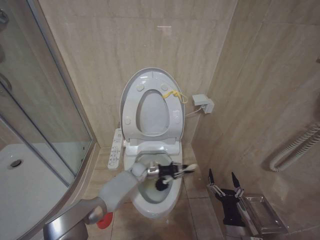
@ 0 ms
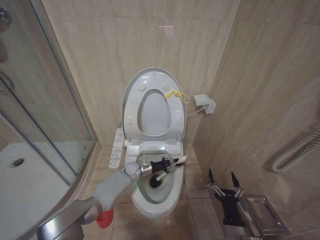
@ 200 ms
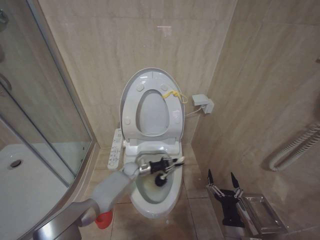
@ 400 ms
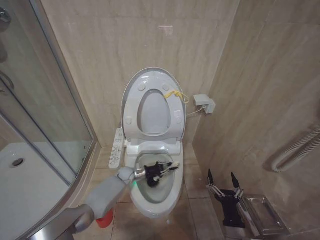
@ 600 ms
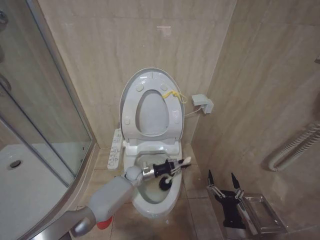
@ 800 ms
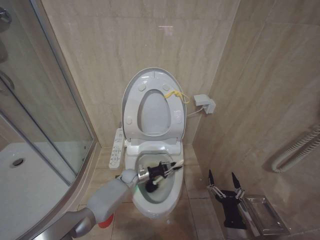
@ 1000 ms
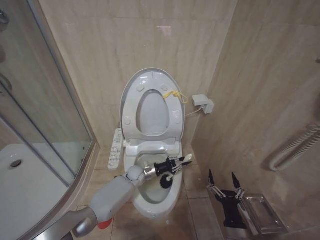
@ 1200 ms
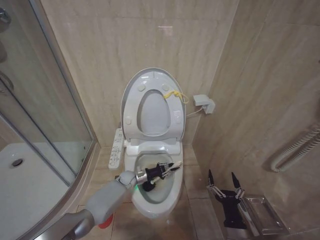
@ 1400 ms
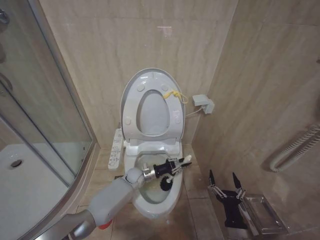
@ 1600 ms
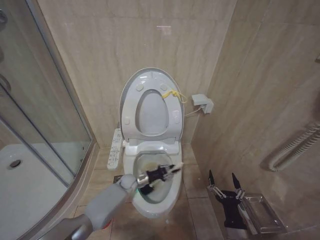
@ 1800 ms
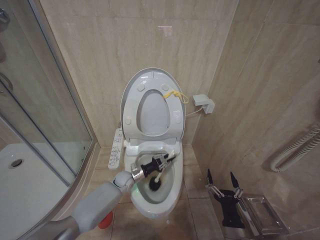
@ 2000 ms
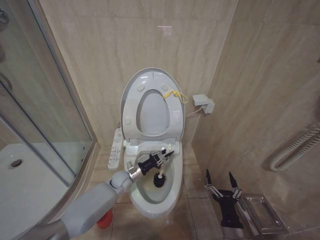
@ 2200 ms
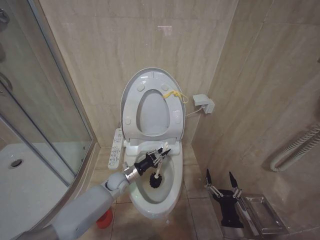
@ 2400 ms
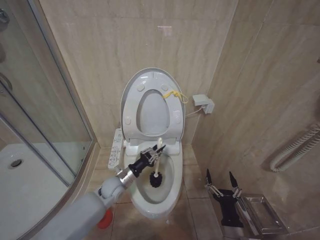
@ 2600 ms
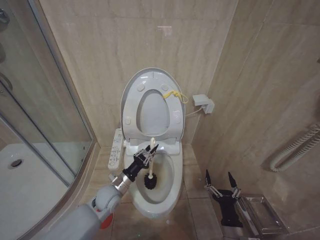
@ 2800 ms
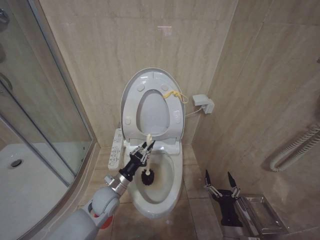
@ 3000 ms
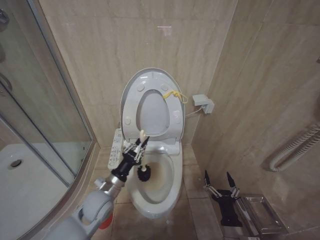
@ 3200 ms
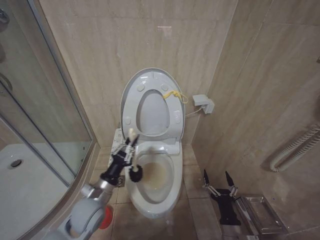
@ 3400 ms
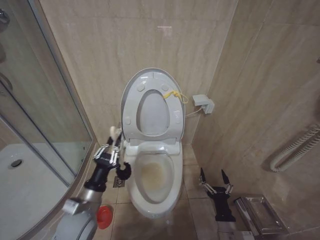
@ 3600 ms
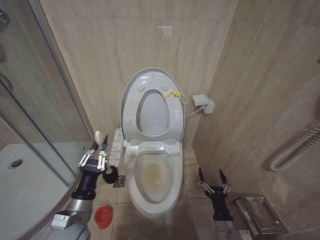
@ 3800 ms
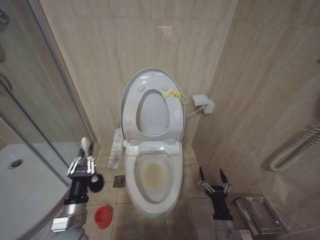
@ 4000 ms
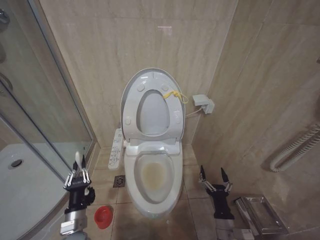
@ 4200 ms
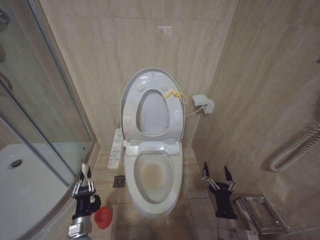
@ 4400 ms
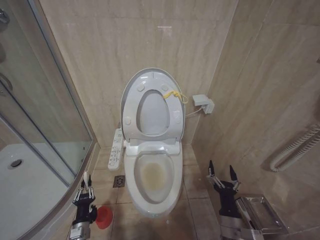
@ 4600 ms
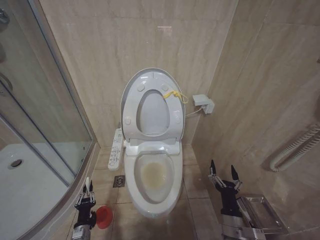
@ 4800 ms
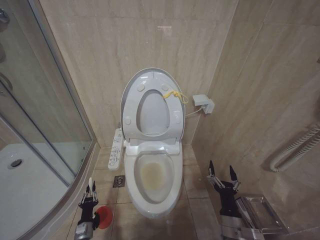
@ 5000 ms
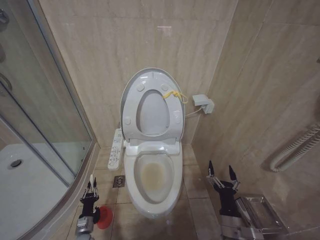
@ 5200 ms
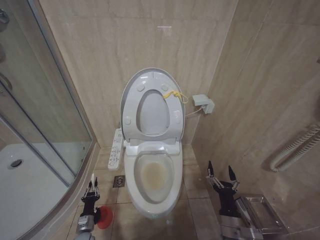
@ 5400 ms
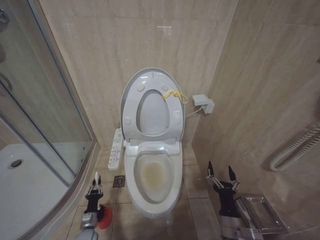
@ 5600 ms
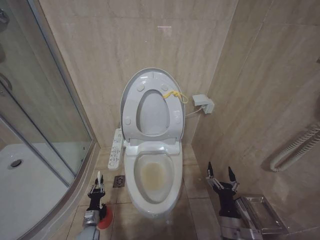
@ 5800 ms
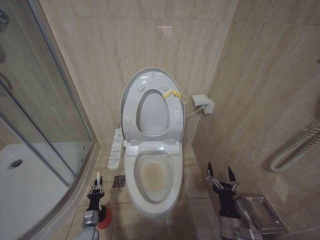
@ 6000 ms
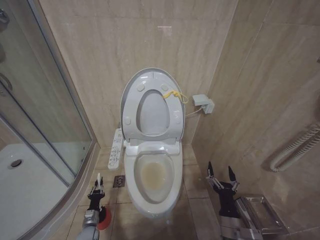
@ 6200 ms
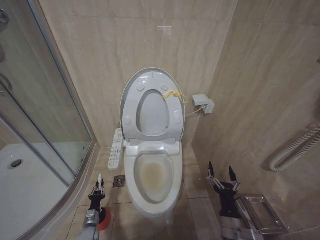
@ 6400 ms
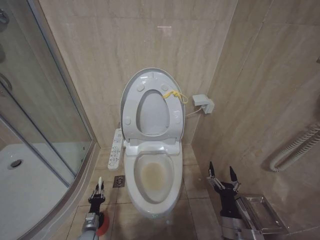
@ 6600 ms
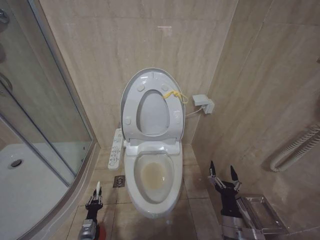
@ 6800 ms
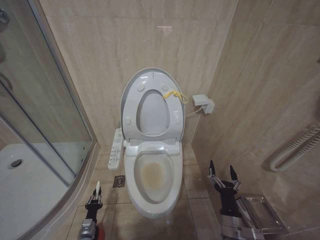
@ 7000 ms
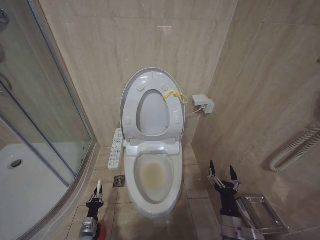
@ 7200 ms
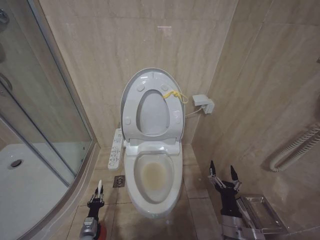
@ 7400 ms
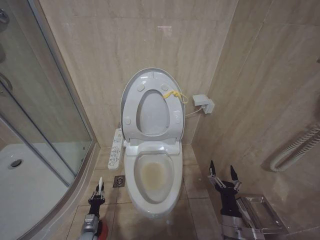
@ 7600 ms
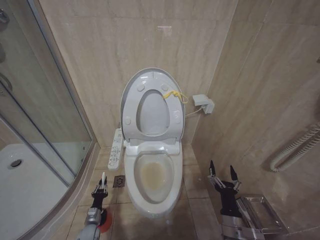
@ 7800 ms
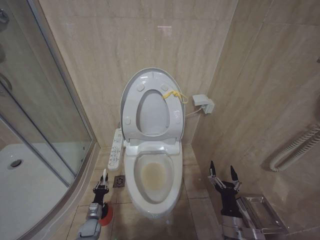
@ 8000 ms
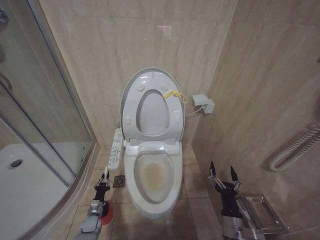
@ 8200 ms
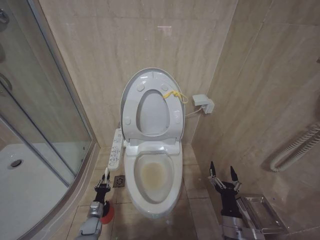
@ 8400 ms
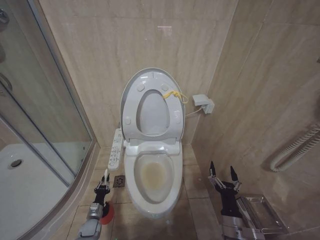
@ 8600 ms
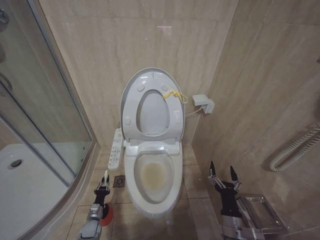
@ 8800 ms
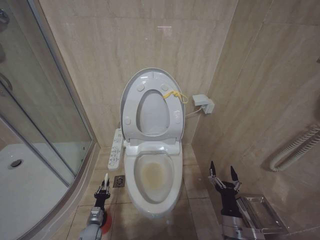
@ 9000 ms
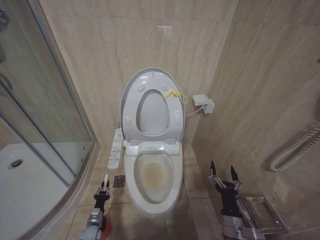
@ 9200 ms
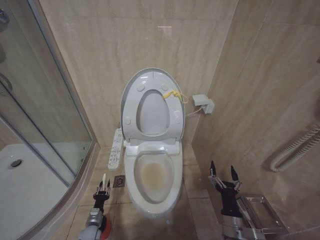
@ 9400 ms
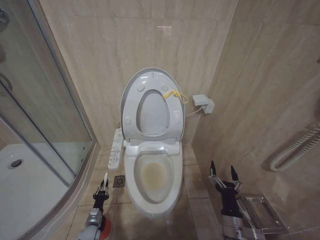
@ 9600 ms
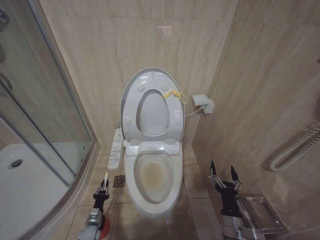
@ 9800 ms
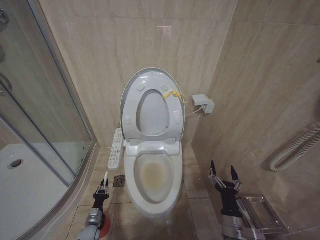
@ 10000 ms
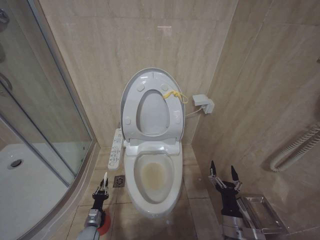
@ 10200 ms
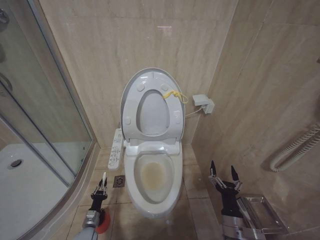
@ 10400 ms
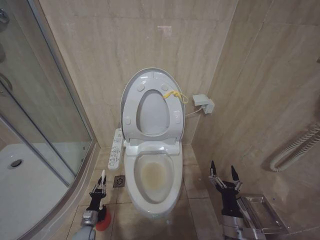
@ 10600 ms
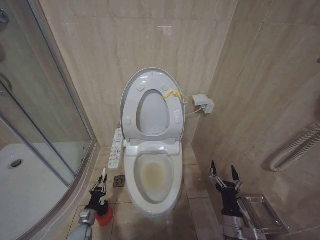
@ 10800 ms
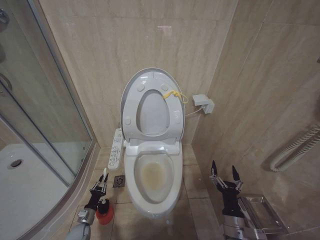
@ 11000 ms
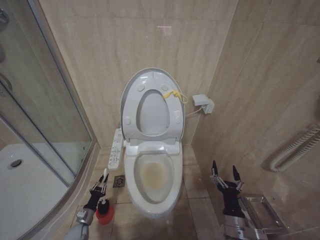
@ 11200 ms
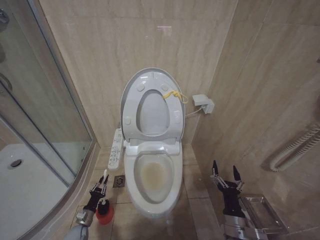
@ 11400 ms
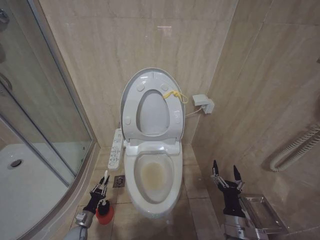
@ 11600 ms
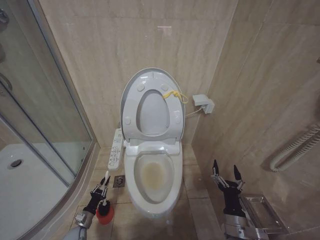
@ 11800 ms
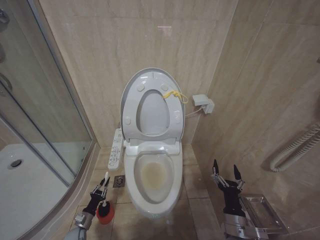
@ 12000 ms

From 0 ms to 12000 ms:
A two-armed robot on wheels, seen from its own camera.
Task of the whole recording: Open the toilet lid, clean the toilet bowl with a toilet brush, close the toilet lid, and flush.
From 1600 ms to 3000 ms: The left gripper shifts approximately 20 cm backward, upward and to the left.
From 3000 ms to 4400 ms: The left gripper heads backward, to the left and downward, covering approximately 15 cm.
From 4400 ms to 6000 ms: The left gripper is displaced downward and forward by roughly 20 cm.
From 6000 ms to 7600 ms: The grippers make only small movements.
From 10400 ms to 12000 ms: The left gripper travels to the left by about 5 cm.

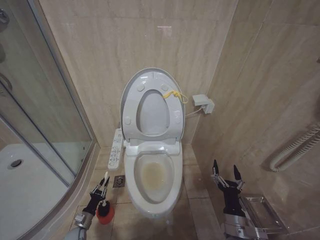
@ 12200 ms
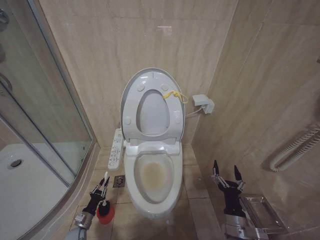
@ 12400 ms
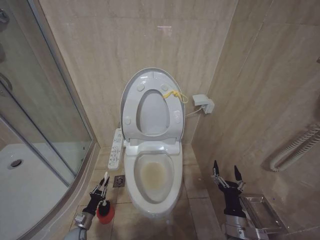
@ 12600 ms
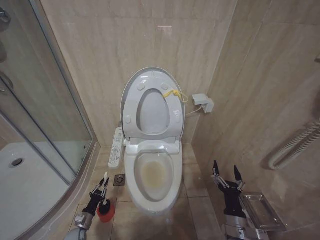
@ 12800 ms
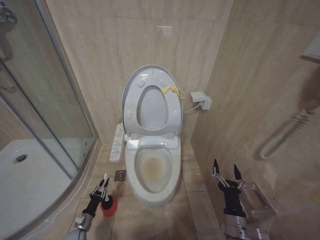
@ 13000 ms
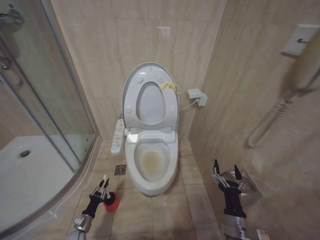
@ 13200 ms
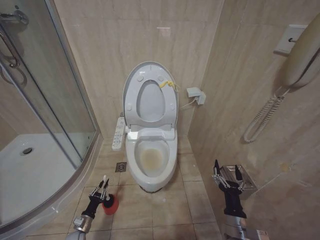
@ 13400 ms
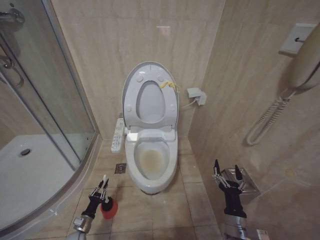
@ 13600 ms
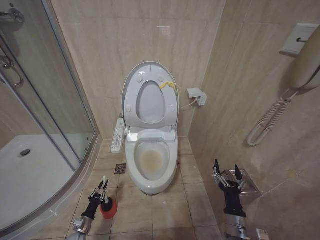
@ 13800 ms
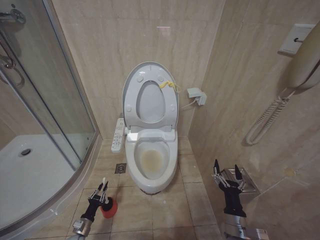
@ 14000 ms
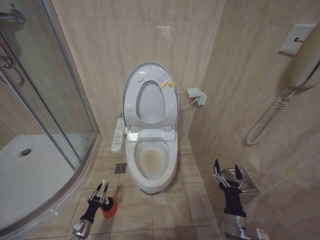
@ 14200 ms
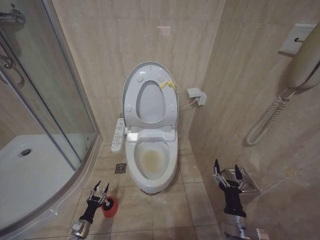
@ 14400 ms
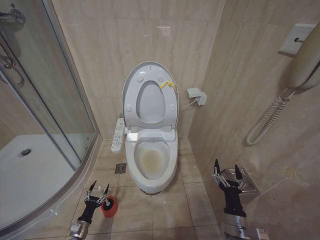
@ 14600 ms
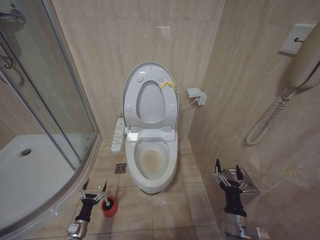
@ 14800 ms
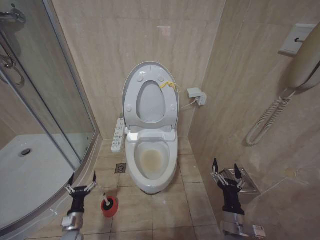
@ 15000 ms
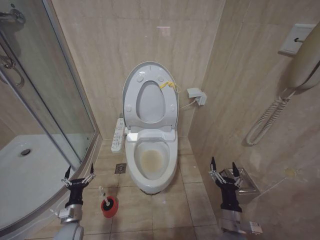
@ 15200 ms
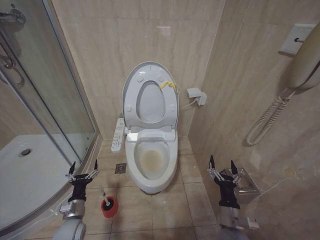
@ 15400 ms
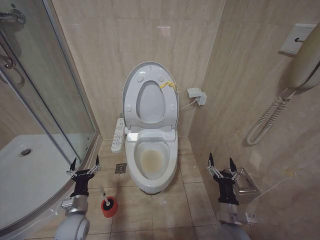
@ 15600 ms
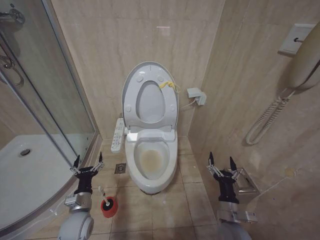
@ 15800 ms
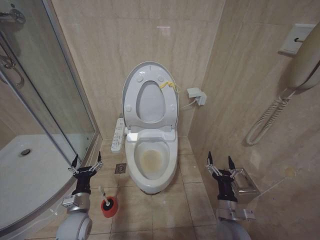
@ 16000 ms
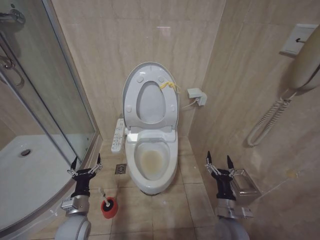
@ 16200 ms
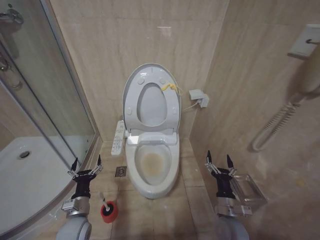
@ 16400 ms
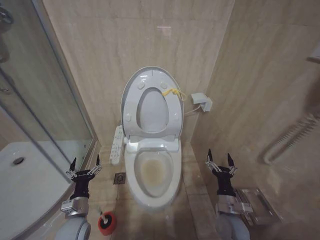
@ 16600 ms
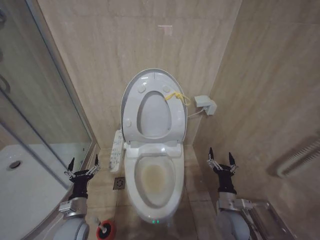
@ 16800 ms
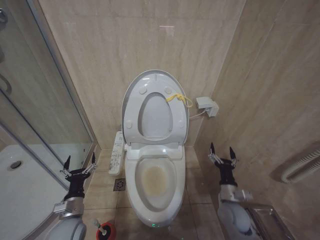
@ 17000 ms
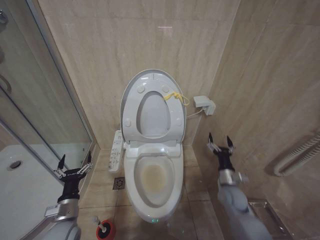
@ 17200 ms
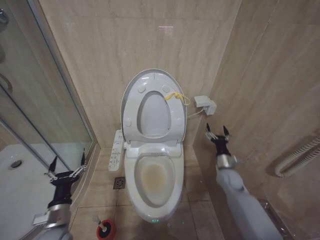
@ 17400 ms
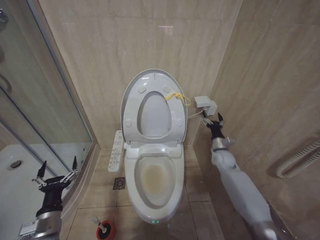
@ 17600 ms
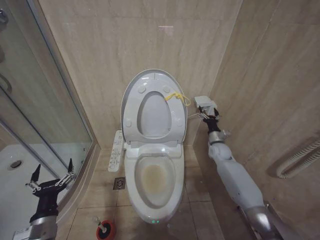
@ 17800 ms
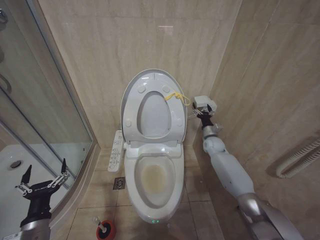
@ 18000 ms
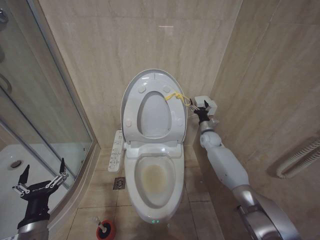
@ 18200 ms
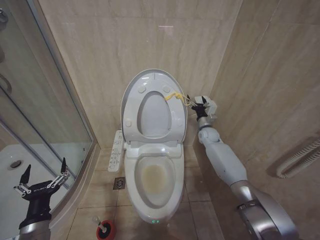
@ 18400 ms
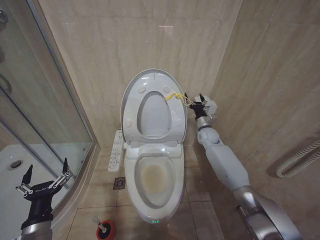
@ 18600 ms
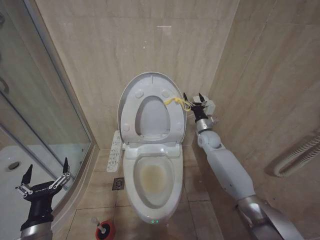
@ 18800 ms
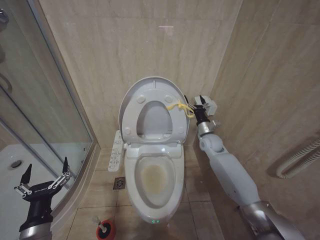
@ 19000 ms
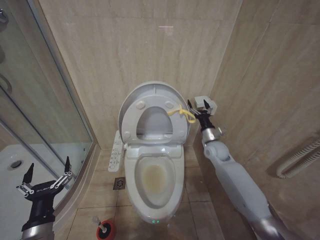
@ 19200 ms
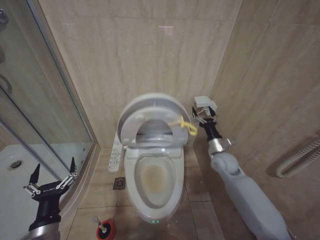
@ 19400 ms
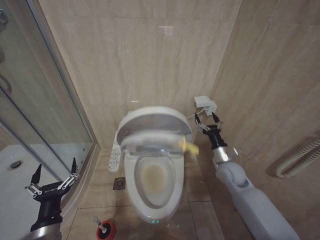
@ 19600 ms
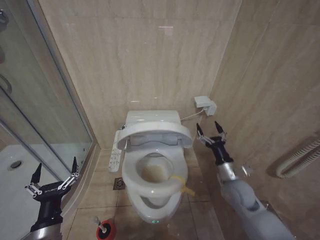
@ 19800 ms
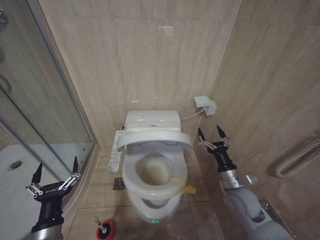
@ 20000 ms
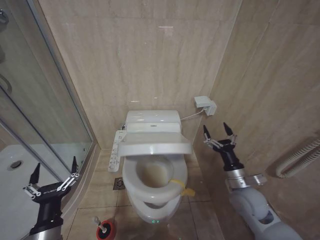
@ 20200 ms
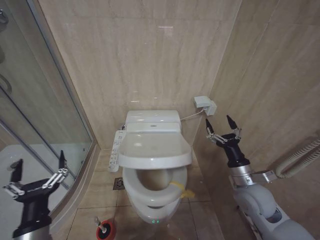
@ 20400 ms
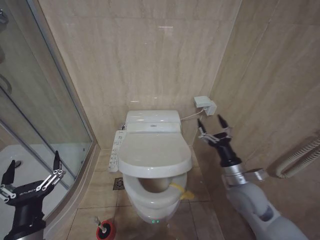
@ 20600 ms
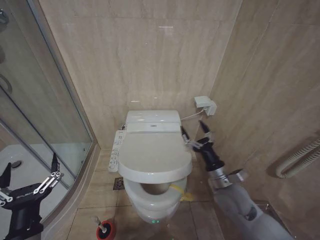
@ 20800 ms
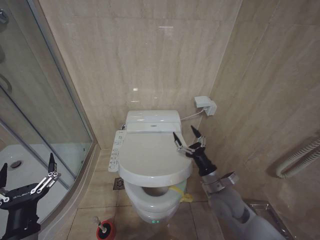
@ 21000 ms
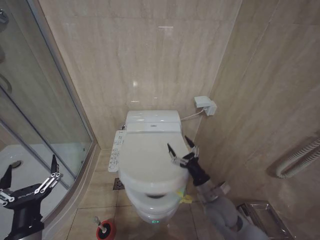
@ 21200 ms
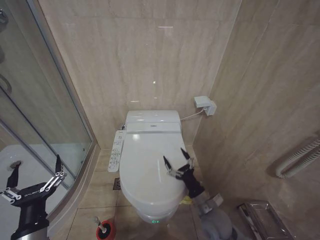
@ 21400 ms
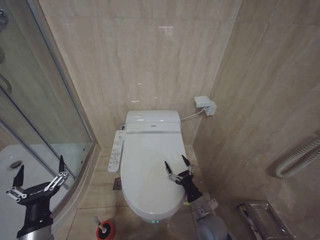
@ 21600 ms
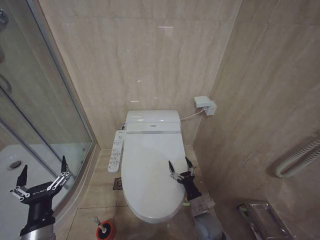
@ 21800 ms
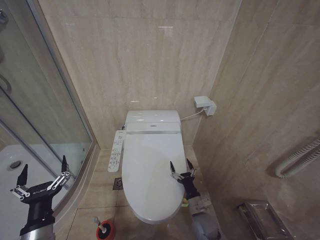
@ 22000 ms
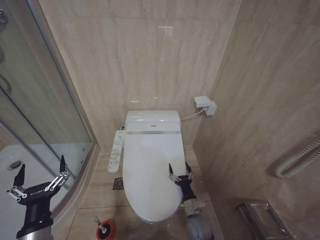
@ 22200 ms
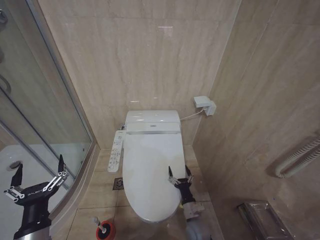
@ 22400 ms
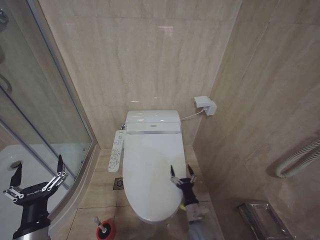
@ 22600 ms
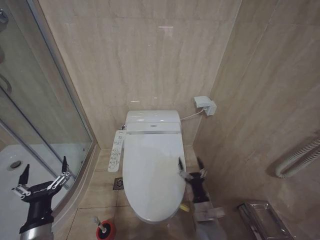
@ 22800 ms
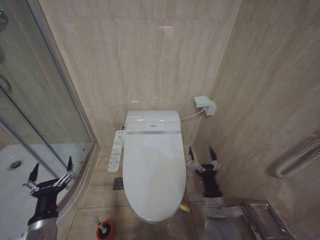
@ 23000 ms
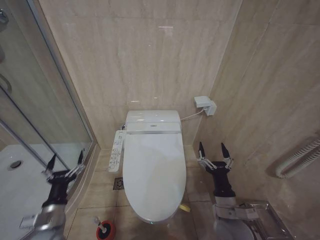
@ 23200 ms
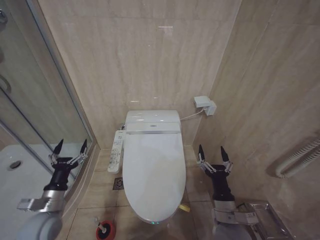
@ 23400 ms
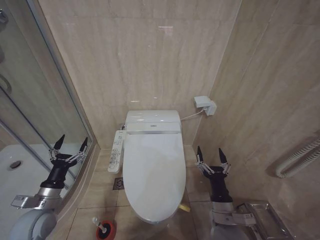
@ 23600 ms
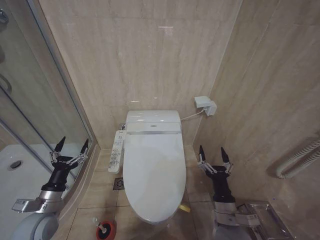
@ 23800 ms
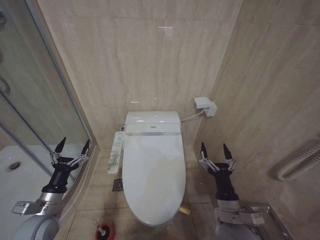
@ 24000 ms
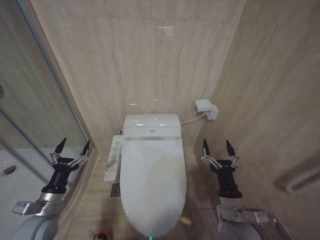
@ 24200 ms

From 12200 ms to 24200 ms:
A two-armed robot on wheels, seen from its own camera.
Task of the whole recording: Open the toilet lid, clean the toilet bowl with a toilet brush, close the toilet lid, and flush.
From 12200 ms to 13800 ms: There are only small adjustments of the grippers.
From 13800 ms to 15200 ms: The left gripper shifts about 10 cm upward, and opens its fingers.
From 15200 ms to 16600 ms: The left gripper heads upward and to the right, covering about 10 cm. Meanwhile the right gripper goes approximately 5 cm forward.
From 16600 ms to 18200 ms: The left gripper goes about 10 cm backward and upward. Meanwhile the right gripper travels forward by approximately 35 cm.
From 18200 ms to 19800 ms: The right gripper is displaced backward by about 25 cm.
From 19800 ms to 21200 ms: The right gripper shifts approximately 10 cm to the left and backward.
From 21200 ms to 22600 ms: The right gripper heads downward, covering roughly 20 cm.
From 22600 ms to 24200 ms: The left gripper goes some 10 cm forward and to the left. Meanwhile the right gripper goes approximately 20 cm upward.
